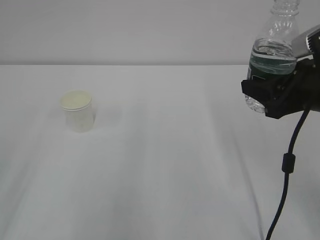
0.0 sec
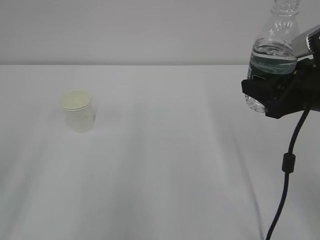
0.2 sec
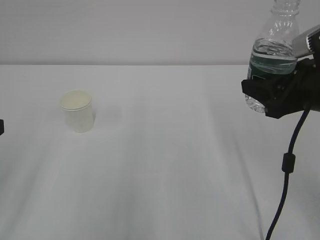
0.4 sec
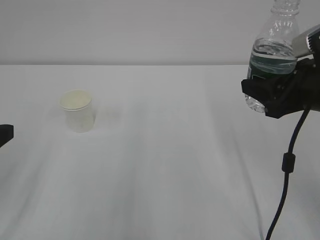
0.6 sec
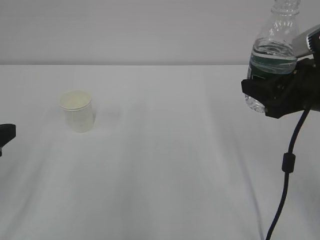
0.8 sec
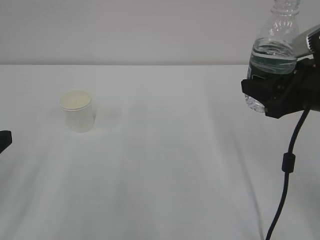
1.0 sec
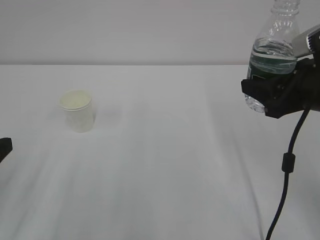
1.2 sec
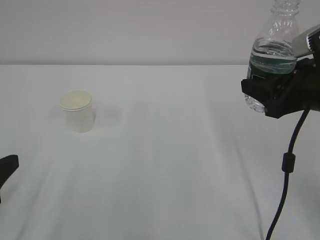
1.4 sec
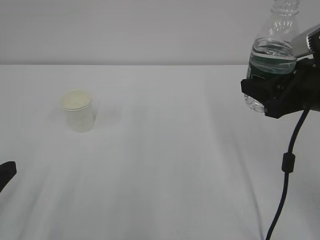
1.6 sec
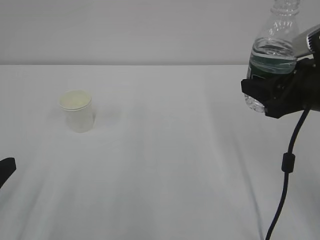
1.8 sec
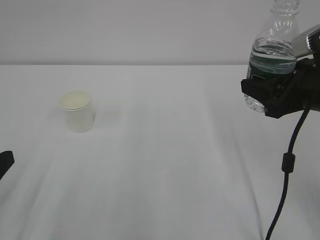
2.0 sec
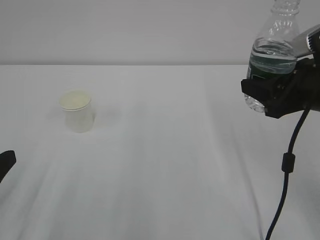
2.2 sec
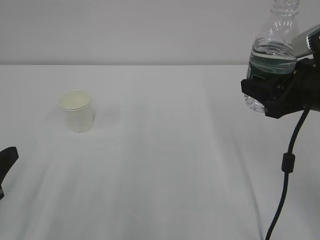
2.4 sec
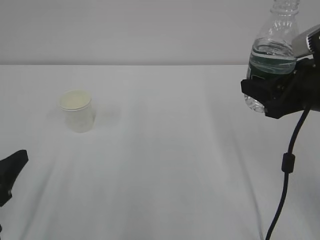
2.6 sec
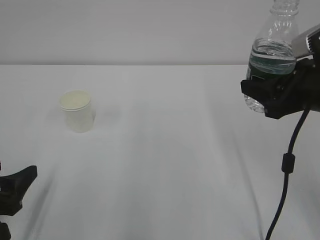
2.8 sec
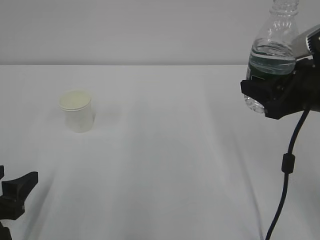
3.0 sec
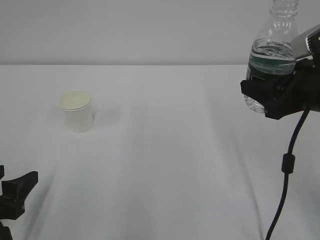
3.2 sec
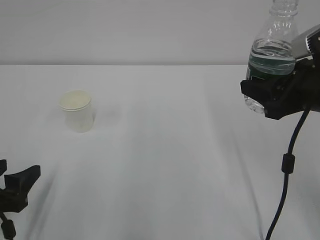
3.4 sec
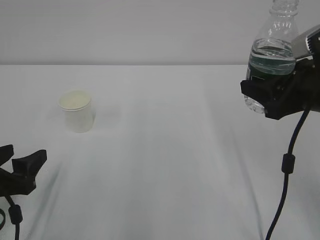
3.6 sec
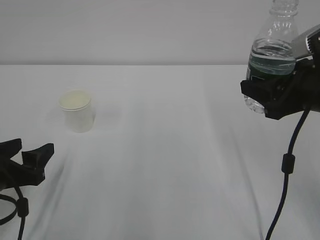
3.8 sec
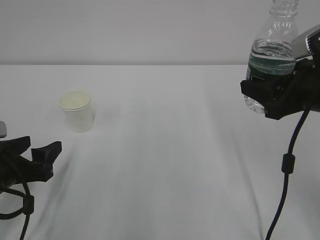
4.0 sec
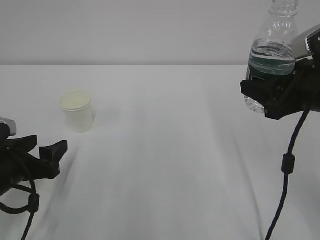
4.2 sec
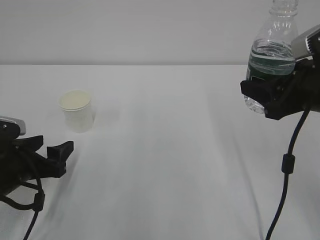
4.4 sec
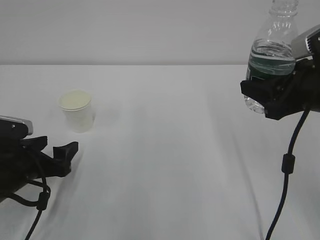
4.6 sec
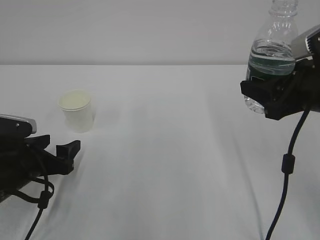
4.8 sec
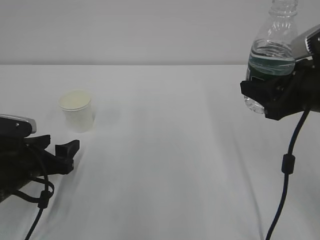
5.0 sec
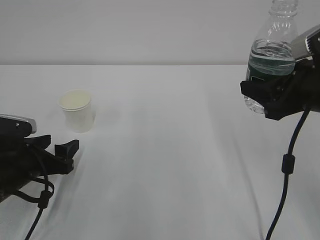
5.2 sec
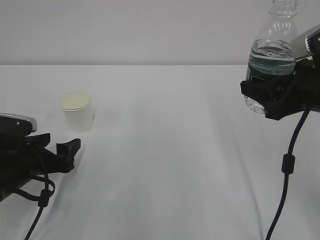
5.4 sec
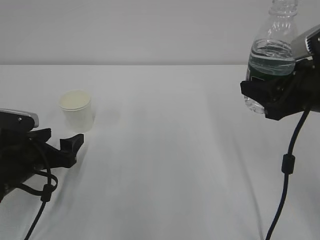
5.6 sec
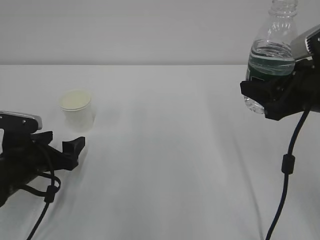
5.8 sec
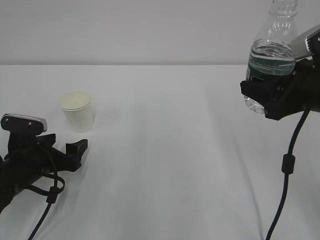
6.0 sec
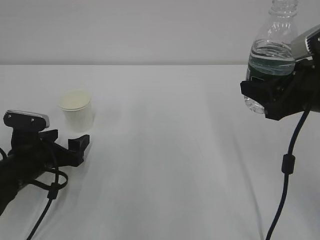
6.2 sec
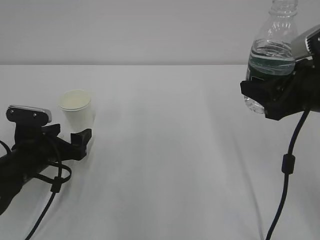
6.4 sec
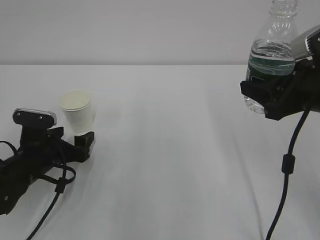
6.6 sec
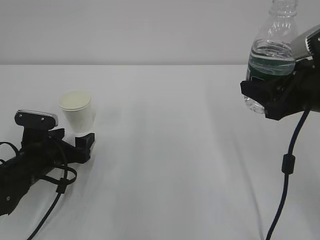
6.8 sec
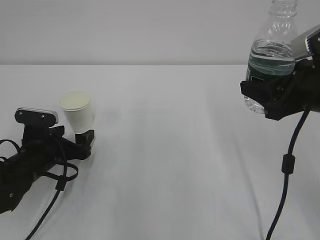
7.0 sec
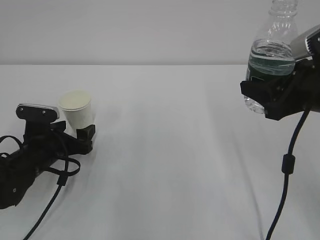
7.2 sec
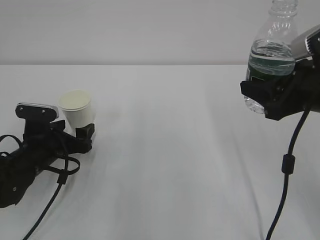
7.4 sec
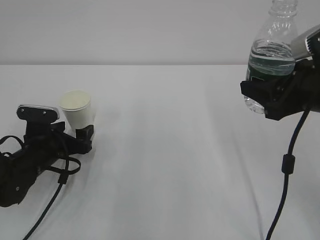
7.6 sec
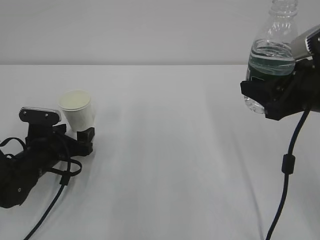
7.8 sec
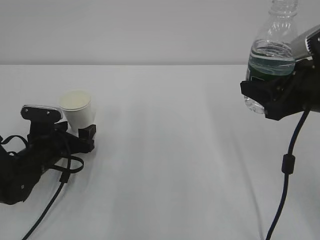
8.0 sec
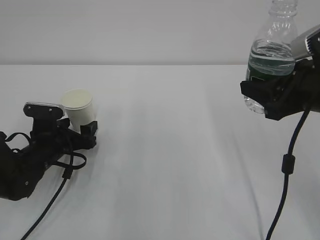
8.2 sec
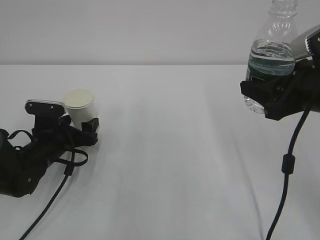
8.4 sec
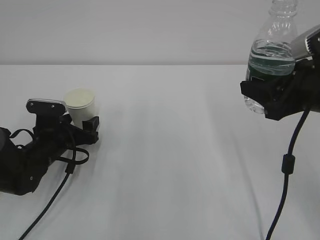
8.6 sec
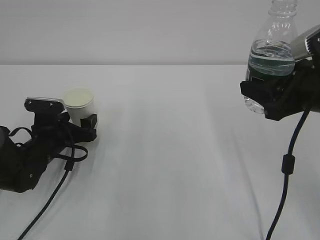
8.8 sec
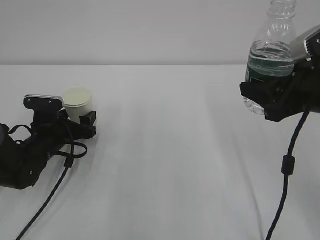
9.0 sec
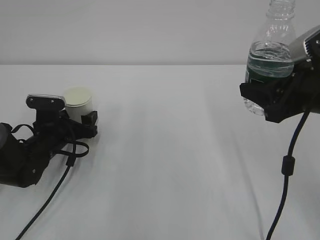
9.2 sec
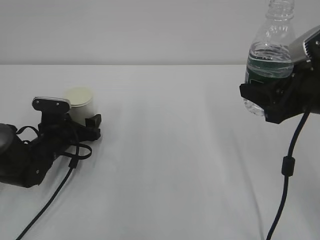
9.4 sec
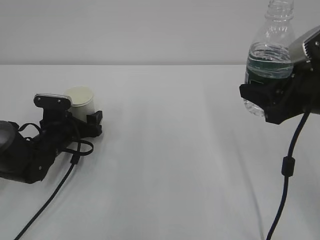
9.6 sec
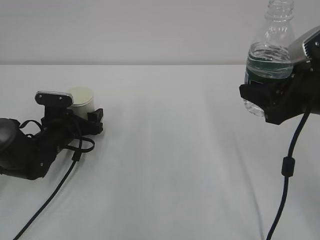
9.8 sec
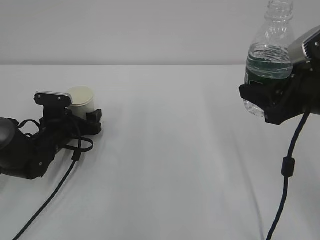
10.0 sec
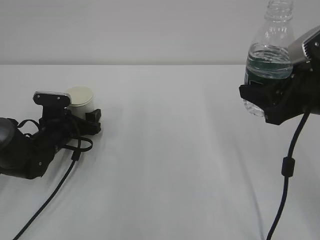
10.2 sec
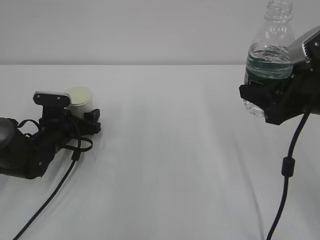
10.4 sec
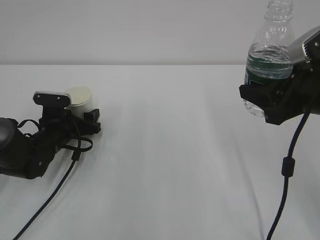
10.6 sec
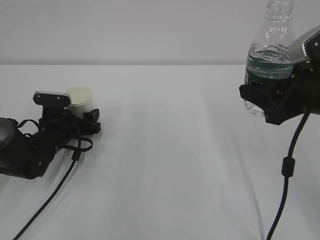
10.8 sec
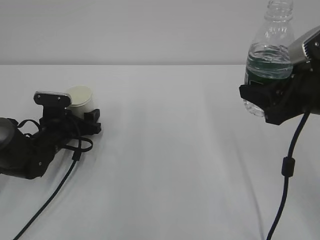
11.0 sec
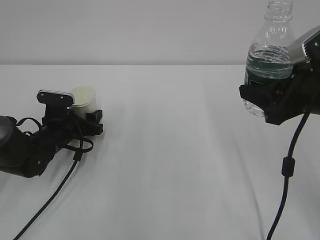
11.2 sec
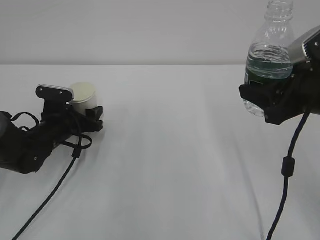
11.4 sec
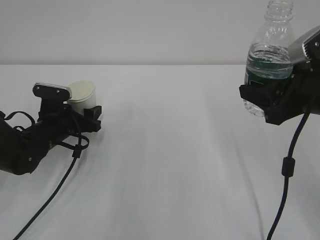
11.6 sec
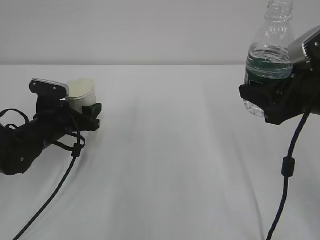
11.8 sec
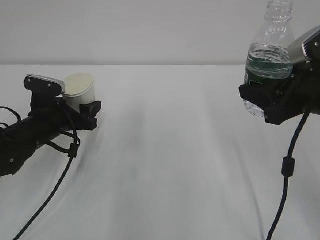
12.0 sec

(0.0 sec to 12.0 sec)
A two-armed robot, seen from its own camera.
1.6 sec - 3.0 sec: The left gripper shifts by about 5 cm, and opens its fingers.
3.0 sec - 4.4 sec: The left gripper travels forward by about 10 cm.
4.4 sec - 6.0 sec: The grippers make only small movements.
6.0 sec - 7.6 sec: The left gripper changes place by about 5 cm.
7.6 sec - 9.0 sec: There are only small adjustments of the grippers.
9.0 sec - 10.4 sec: The grippers make only small movements.
10.4 sec - 12.0 sec: The left gripper heads upward, covering about 5 cm.

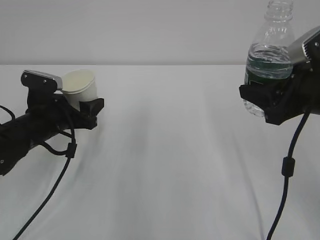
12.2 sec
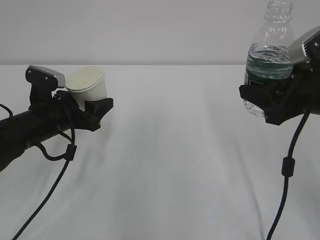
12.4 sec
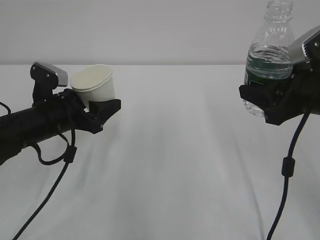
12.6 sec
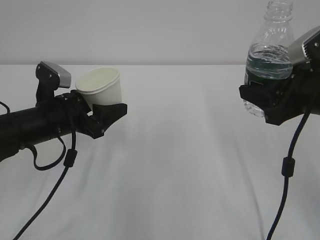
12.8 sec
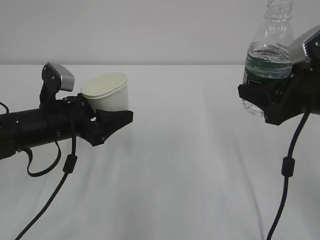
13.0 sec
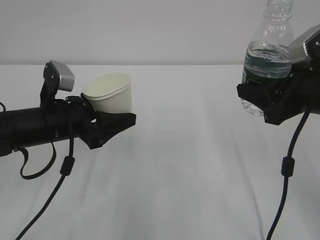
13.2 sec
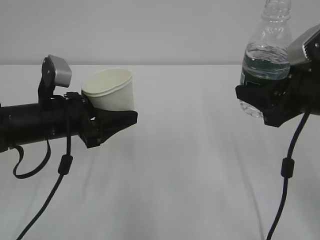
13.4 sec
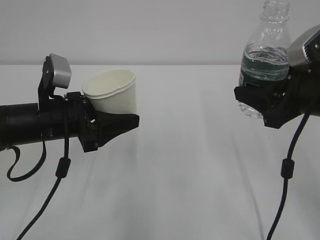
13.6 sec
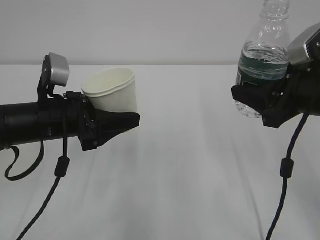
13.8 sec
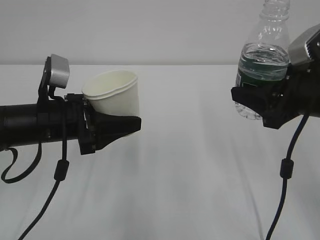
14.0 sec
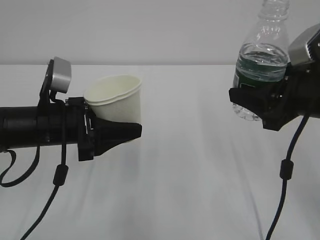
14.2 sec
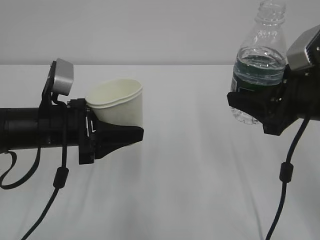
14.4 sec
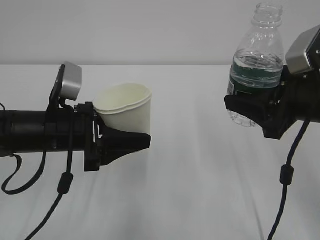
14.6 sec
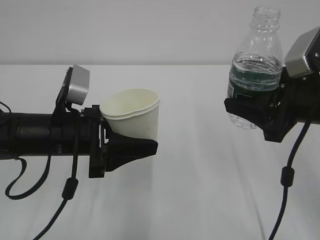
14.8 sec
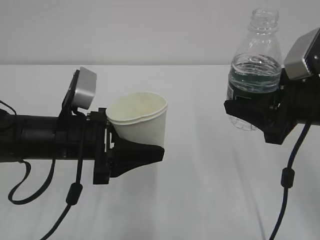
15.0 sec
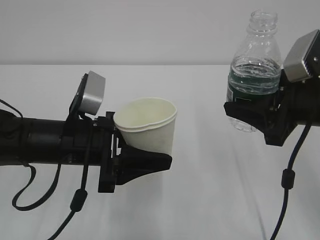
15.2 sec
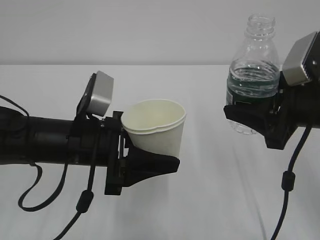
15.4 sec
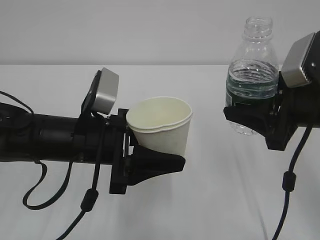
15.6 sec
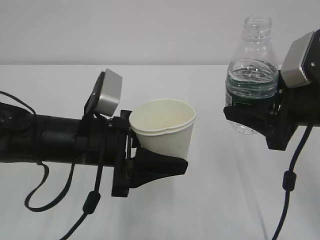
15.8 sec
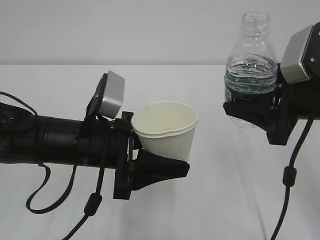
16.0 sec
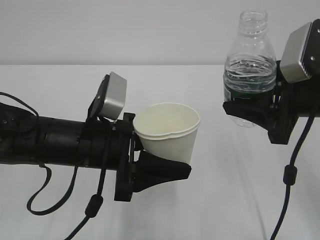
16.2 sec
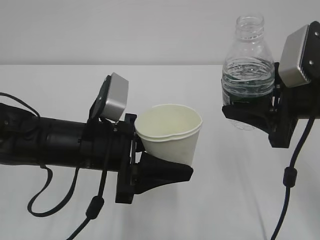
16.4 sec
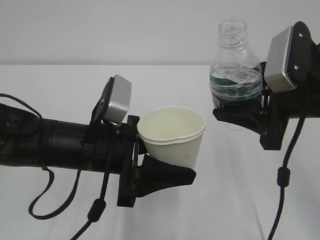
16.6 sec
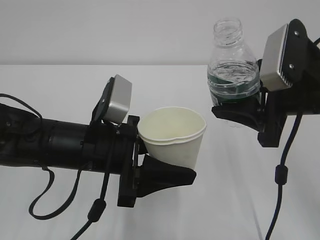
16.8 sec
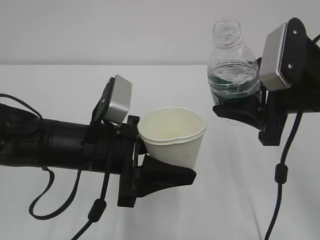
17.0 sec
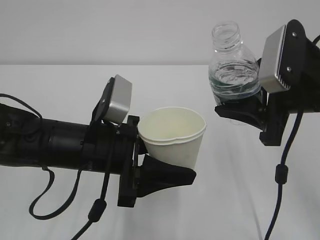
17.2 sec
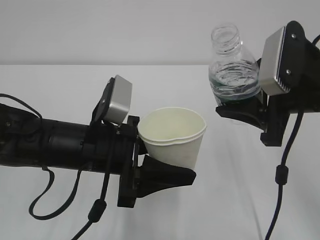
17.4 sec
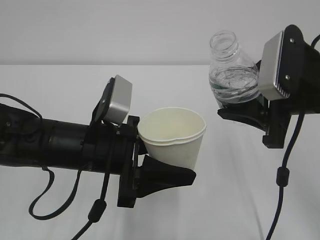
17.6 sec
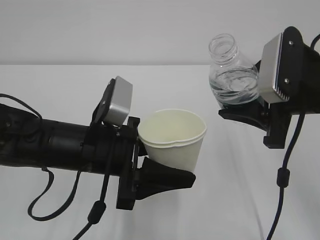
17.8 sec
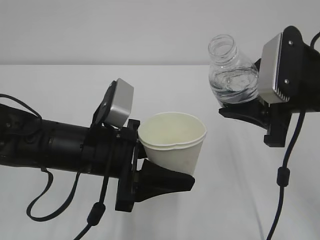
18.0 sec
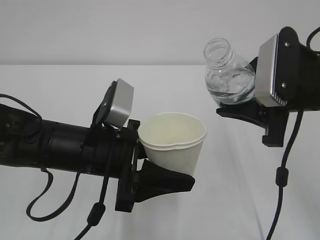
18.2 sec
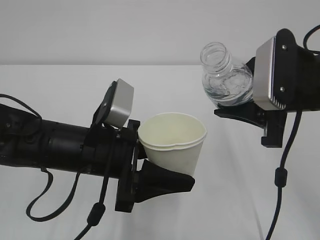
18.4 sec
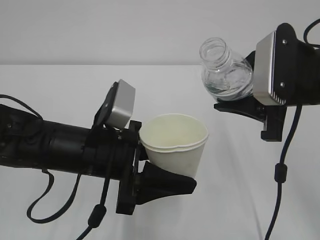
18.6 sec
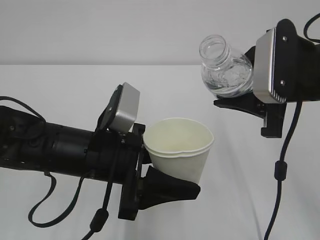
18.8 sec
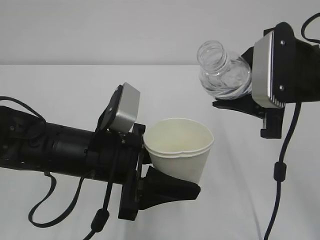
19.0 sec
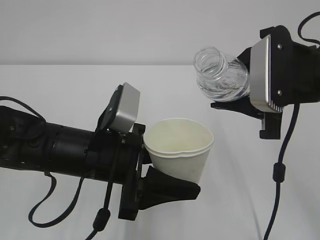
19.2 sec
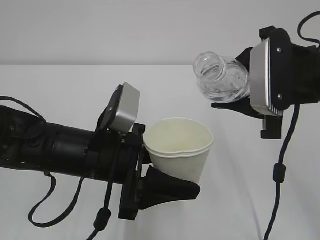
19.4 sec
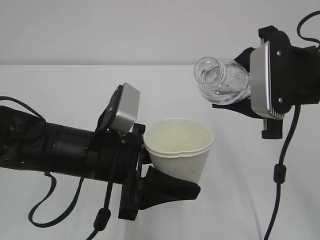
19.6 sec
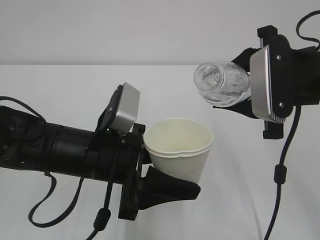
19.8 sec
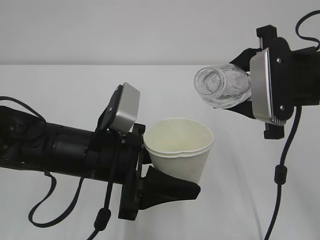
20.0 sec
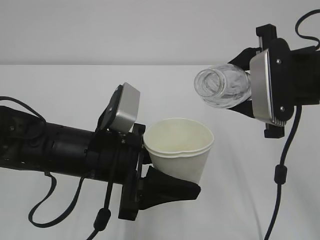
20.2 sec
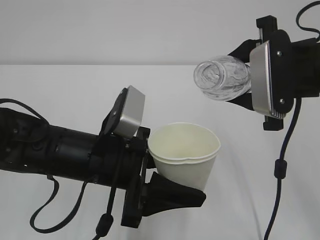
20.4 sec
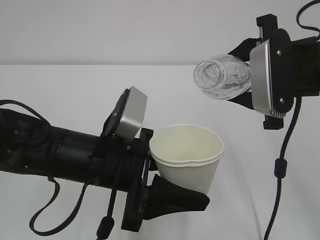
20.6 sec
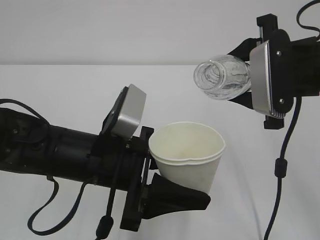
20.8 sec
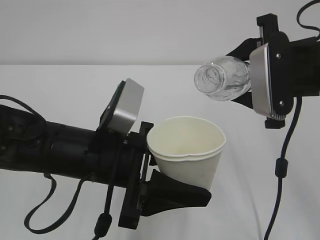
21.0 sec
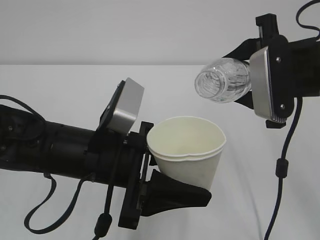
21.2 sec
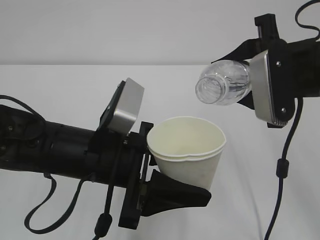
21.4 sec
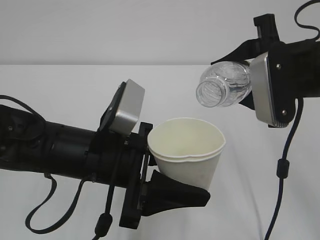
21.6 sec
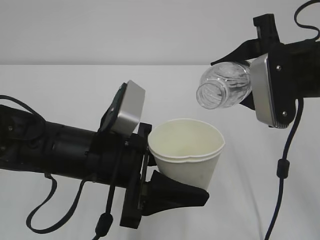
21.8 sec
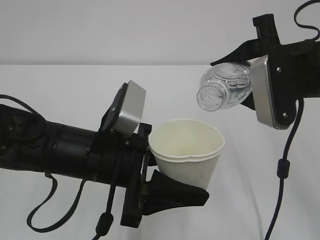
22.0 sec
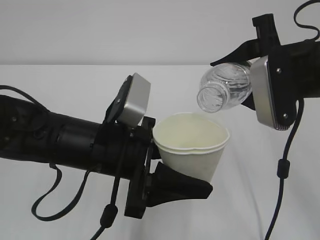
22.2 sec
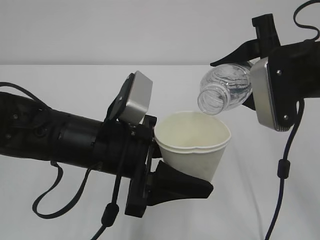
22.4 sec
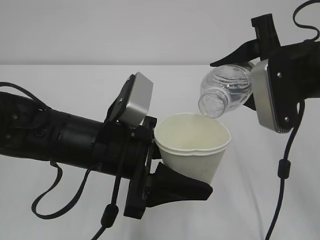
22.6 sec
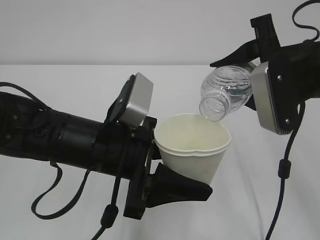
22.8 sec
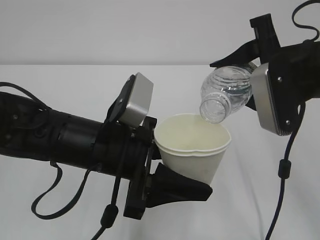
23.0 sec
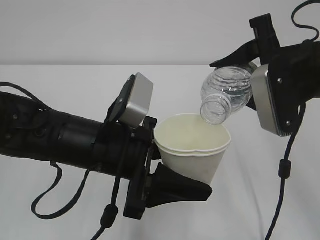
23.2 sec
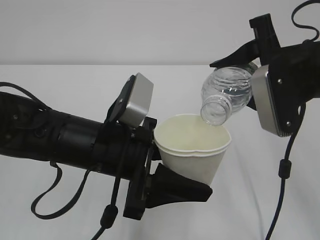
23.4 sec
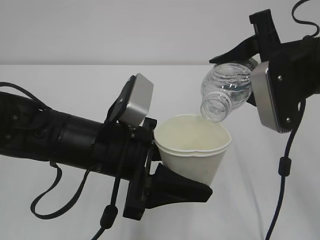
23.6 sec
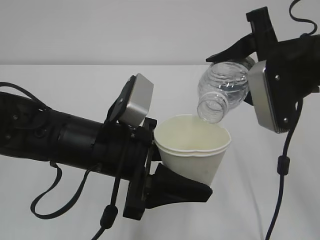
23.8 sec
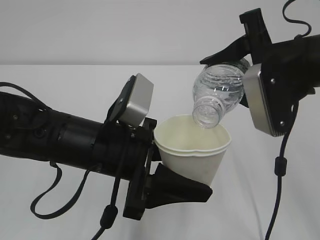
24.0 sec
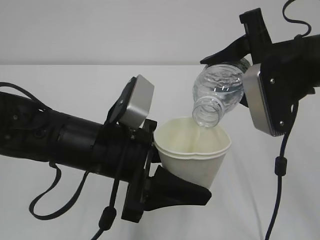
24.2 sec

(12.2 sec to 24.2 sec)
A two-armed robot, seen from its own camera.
12.2 sec - 13.8 sec: The left gripper shifts approximately 10 cm upward and backward.
13.8 sec - 15.2 sec: The left gripper shifts by about 5 cm.
16.6 sec - 18.2 sec: The grippers move only a little.
18.2 sec - 19.8 sec: The grippers move only a little.
19.8 sec - 21.2 sec: There are only small adjustments of the grippers.
21.2 sec - 24.2 sec: There are only small adjustments of the grippers.
